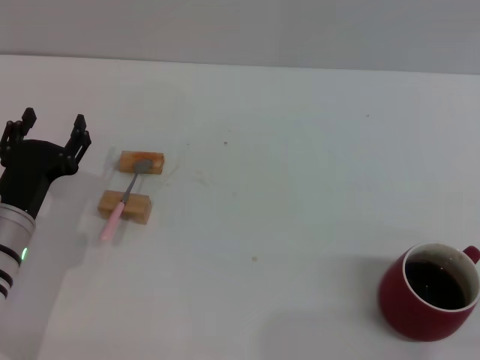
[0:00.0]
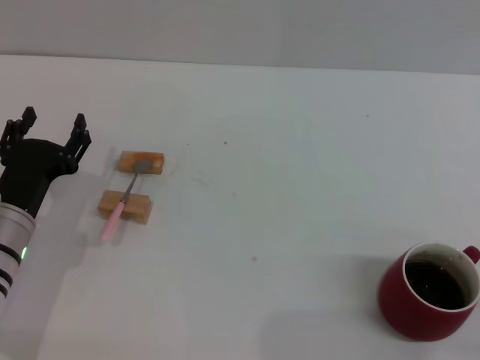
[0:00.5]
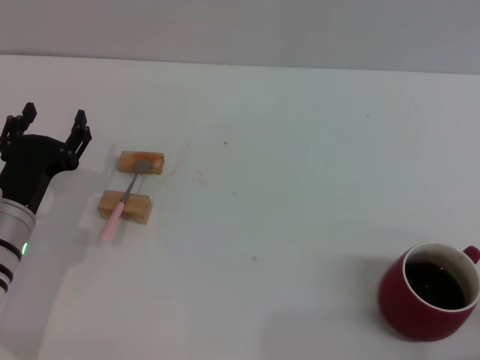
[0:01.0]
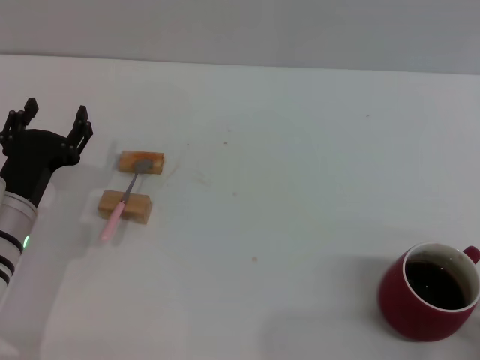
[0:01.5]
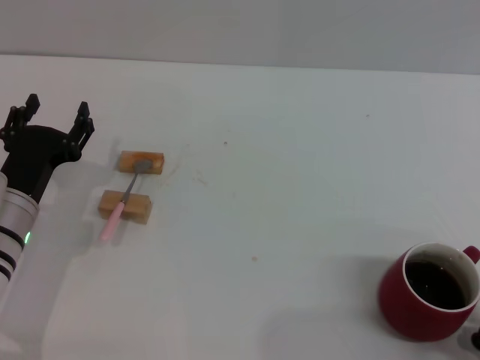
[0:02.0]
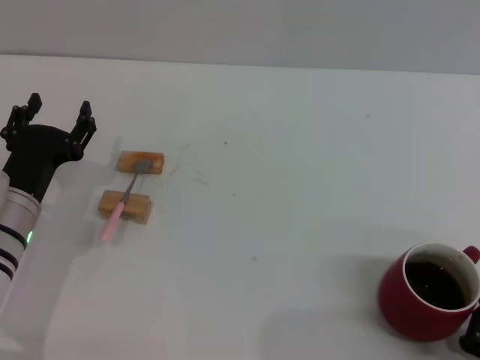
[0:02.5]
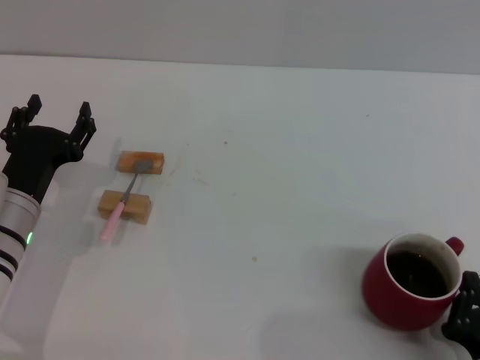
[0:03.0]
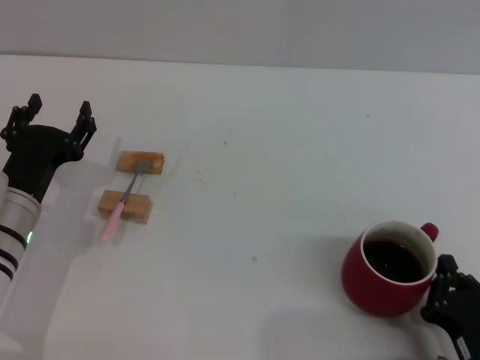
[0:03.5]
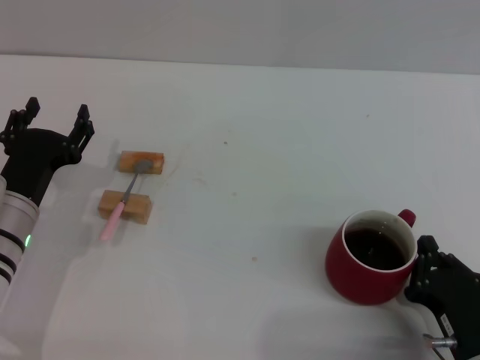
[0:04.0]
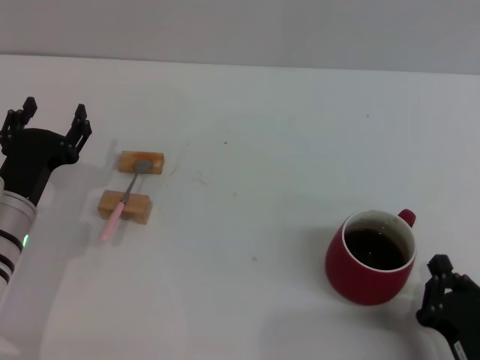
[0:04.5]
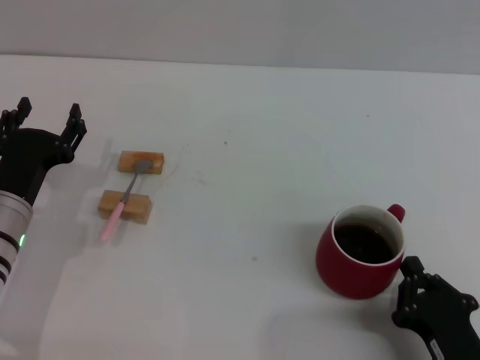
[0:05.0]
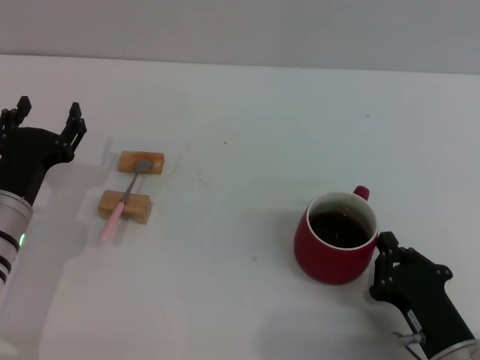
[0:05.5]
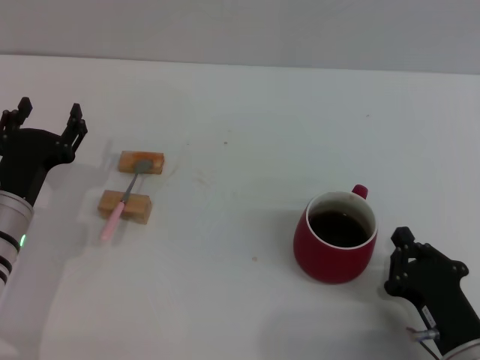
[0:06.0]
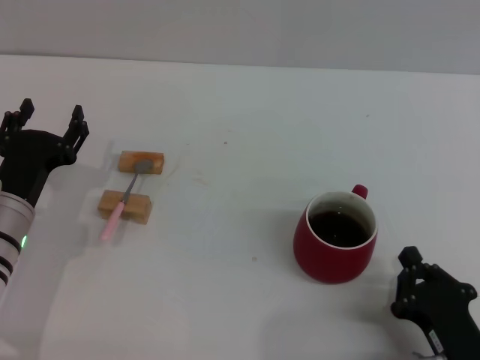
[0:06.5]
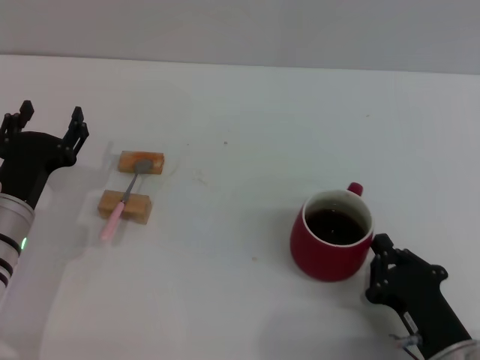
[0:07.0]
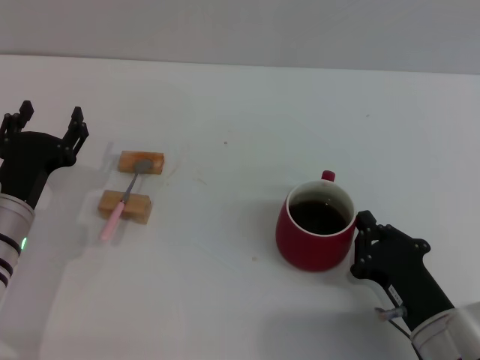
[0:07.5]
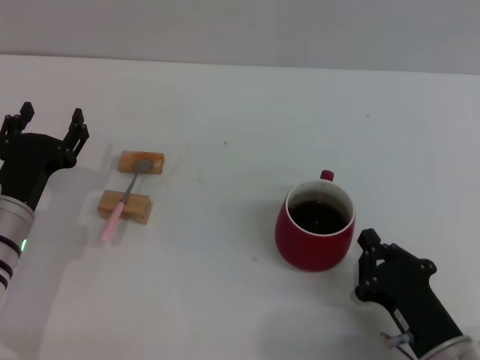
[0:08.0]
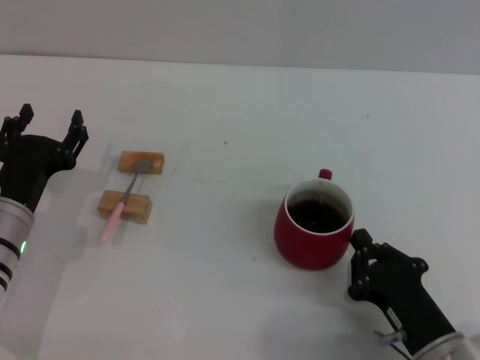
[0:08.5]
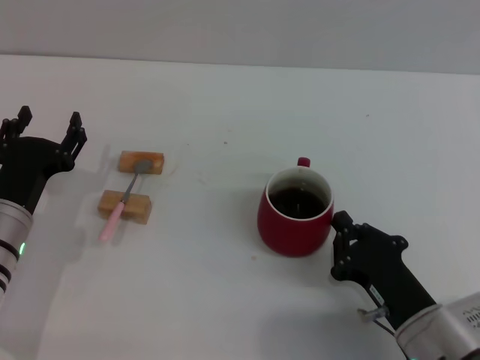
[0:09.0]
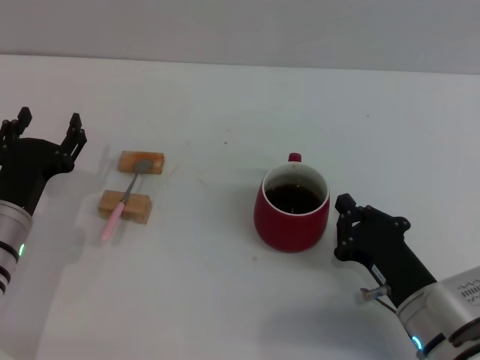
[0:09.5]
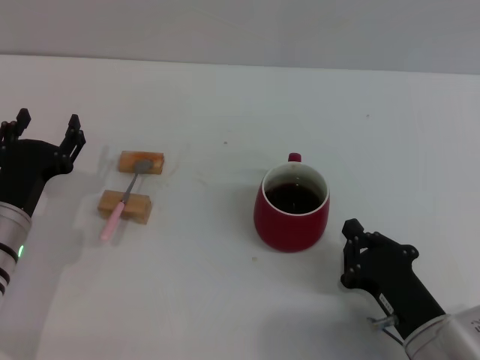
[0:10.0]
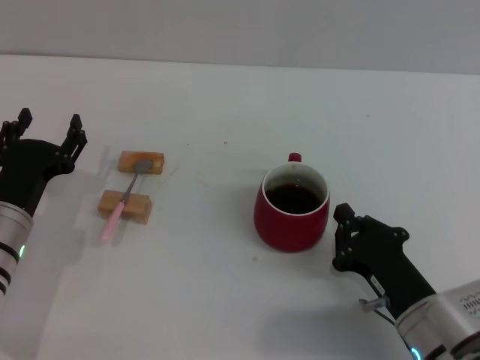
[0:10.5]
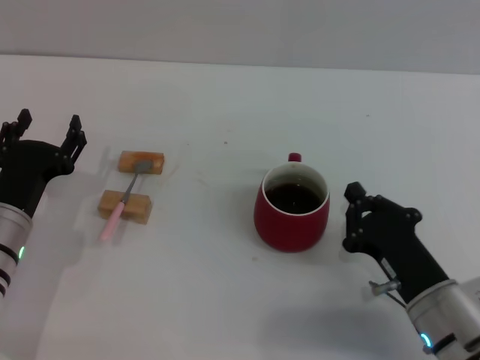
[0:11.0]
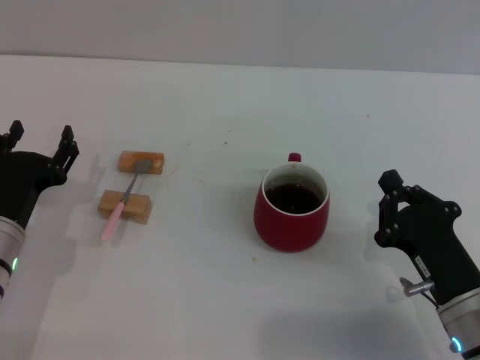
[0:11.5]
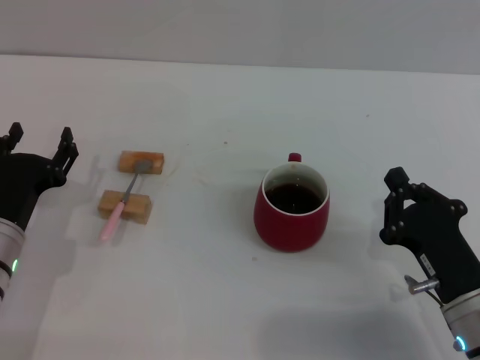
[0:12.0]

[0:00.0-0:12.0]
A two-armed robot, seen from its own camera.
Task of the whole recording: Move the red cup to the center, lift the pink spoon, stir it three times in the cup, and put the spoon into the cup.
Step, 0.0 to 11.0 s: Move the cup with coffee to the center of view with the right gripper.
0.0 to 2.0 s: The right gripper travels to the left by approximately 5 cm.
2.0 to 4.0 s: The right gripper travels forward by some 5 cm.
4.0 to 8.0 s: The grippers stay close to where they were, moving slightly.
8.0 to 12.0 s: There are only small adjustments of the grippers.

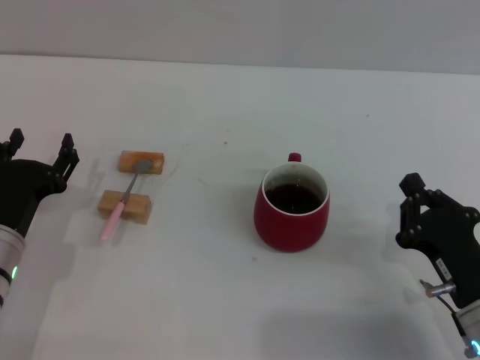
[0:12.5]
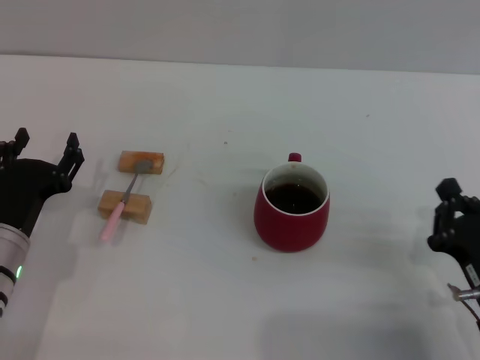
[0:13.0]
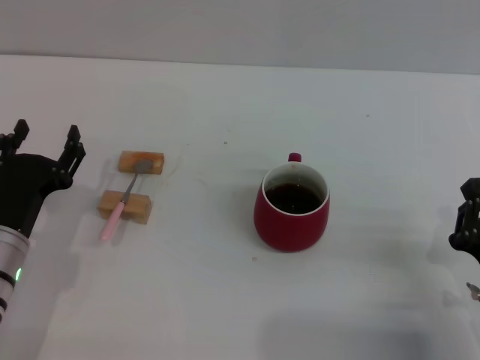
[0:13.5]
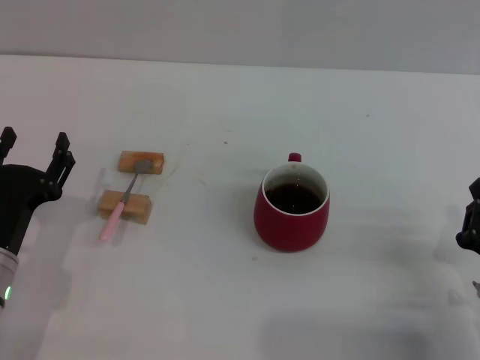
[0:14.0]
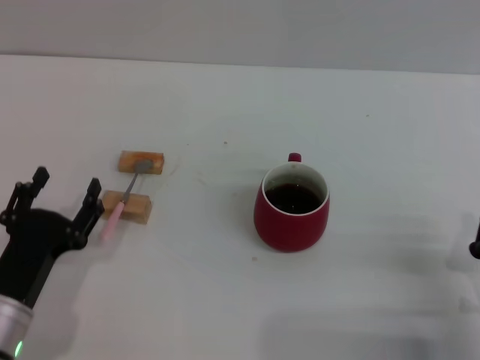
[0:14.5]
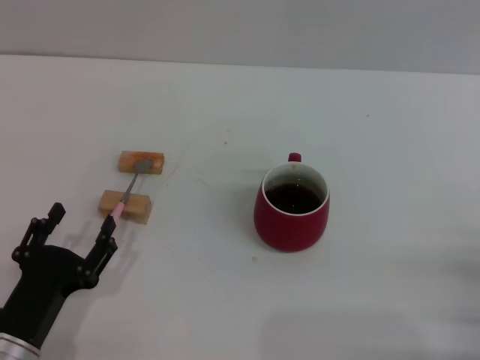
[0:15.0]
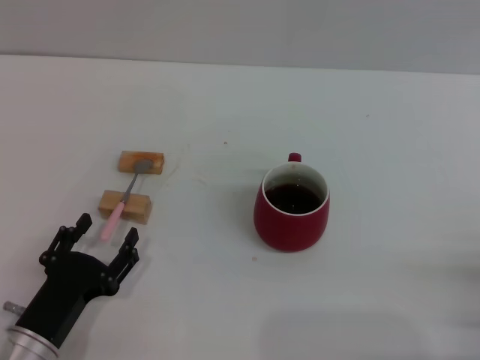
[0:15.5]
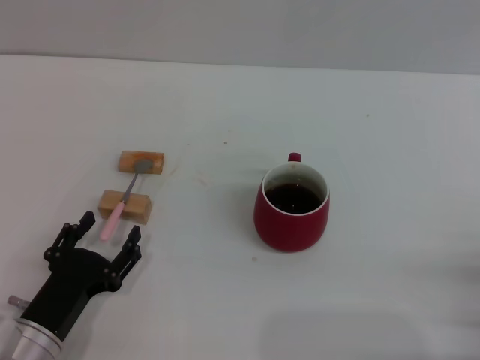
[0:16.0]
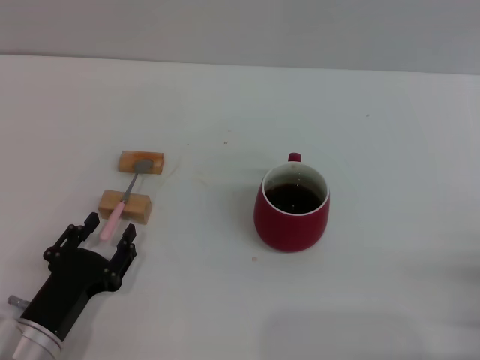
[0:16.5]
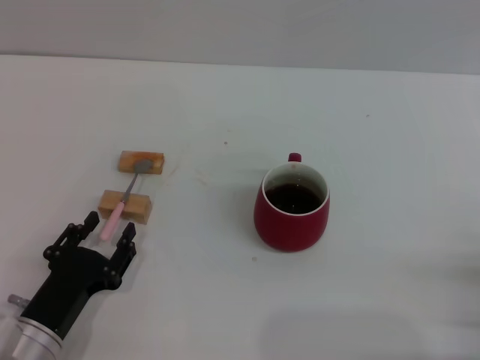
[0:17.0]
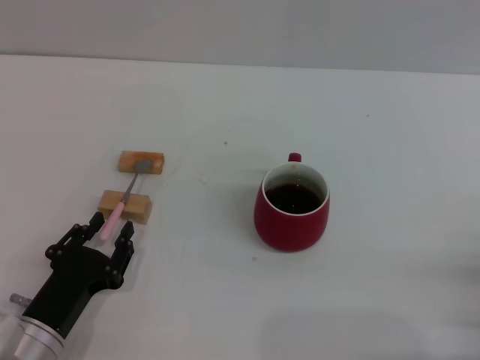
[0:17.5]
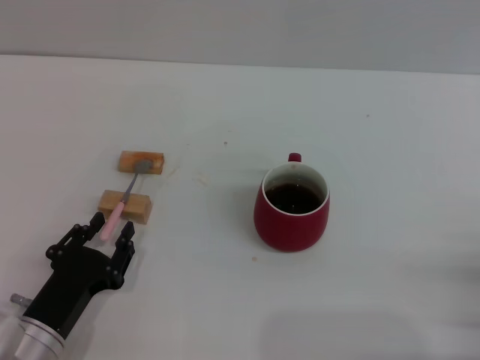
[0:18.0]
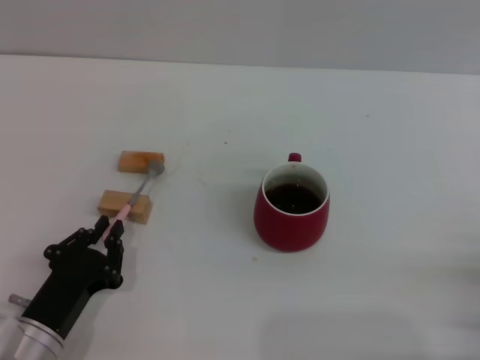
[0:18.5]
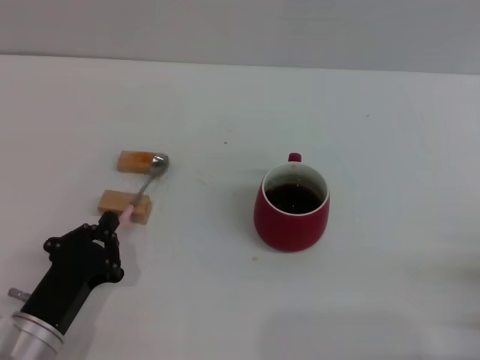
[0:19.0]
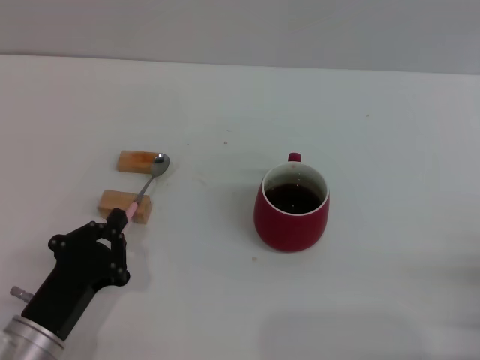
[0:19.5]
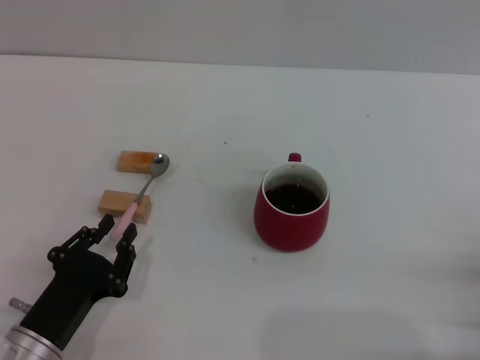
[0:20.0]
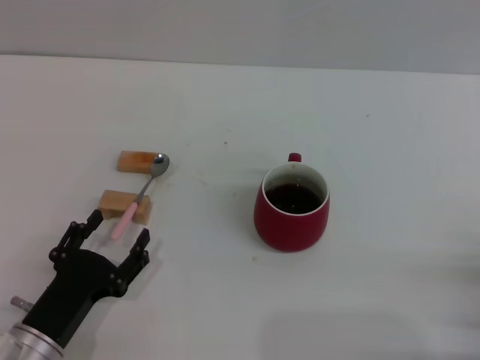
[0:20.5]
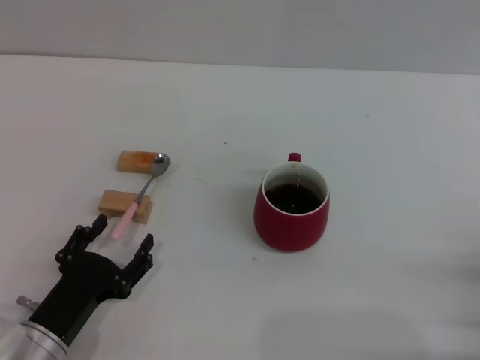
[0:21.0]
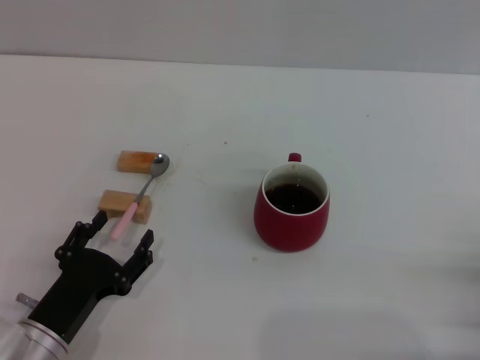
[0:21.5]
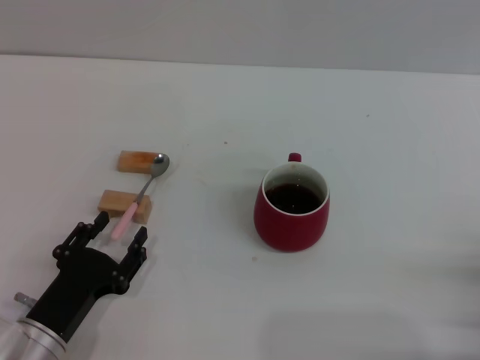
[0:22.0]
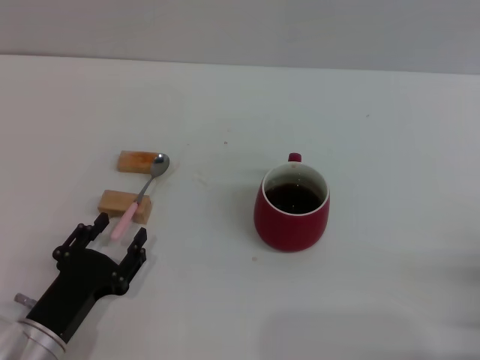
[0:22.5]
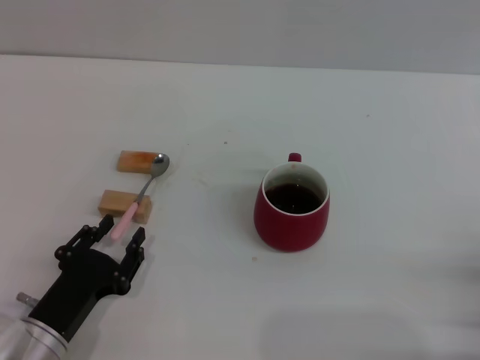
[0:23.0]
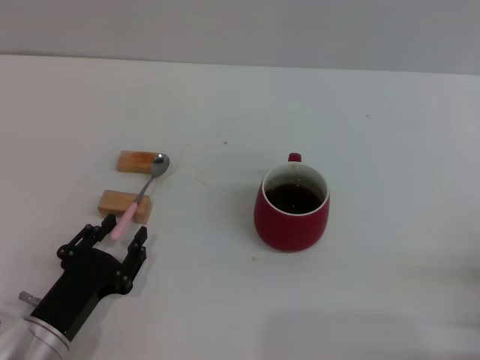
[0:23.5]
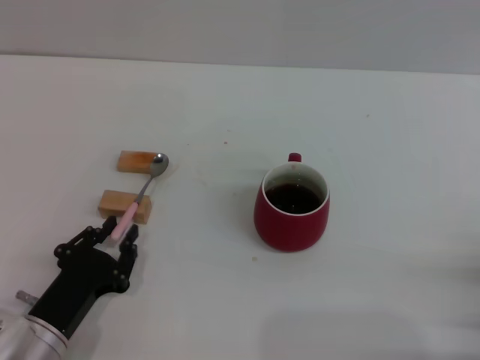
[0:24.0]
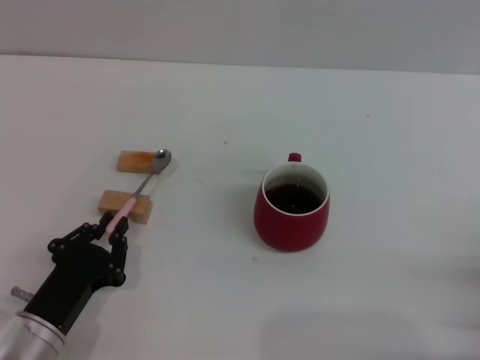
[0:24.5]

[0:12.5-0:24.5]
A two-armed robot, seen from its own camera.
Task of the whole recording: Move the red cup to the center, lift the pink spoon, stir it three times in the cup, and put the spoon into the cup.
12.5 to 14.5 s: The left gripper shifts roughly 5 cm backward.
14.5 to 16.5 s: The grippers move only a little.
16.5 to 18.5 s: The left gripper closes.
18.5 to 20.5 s: The left gripper opens up.
20.5 to 22.5 s: Neither gripper changes place.
22.5 to 24.5 s: The left gripper closes up.

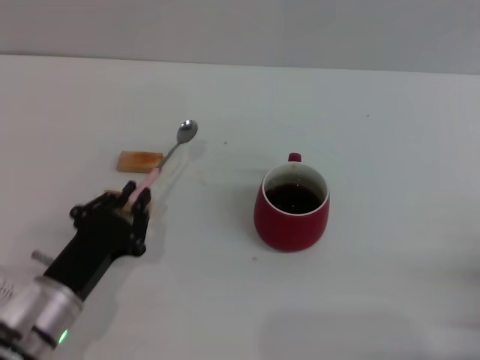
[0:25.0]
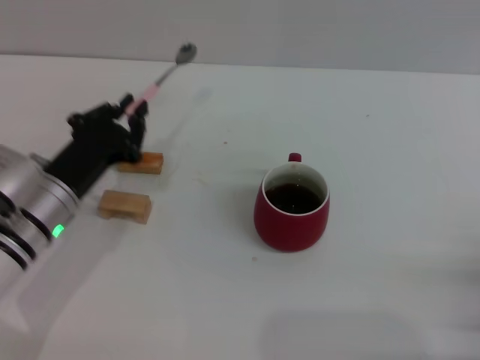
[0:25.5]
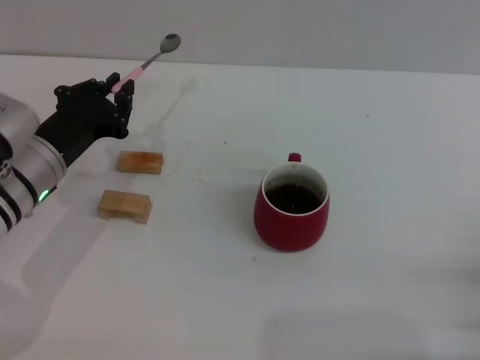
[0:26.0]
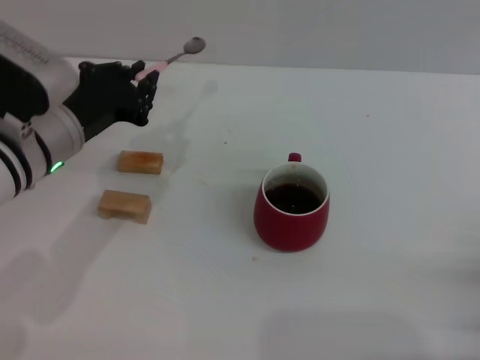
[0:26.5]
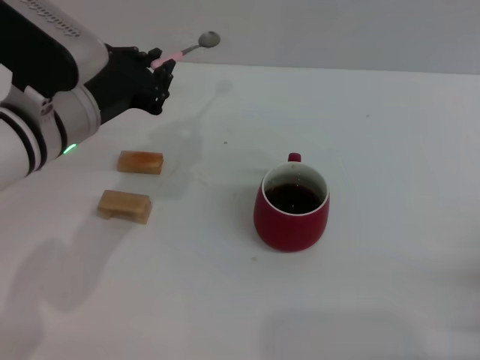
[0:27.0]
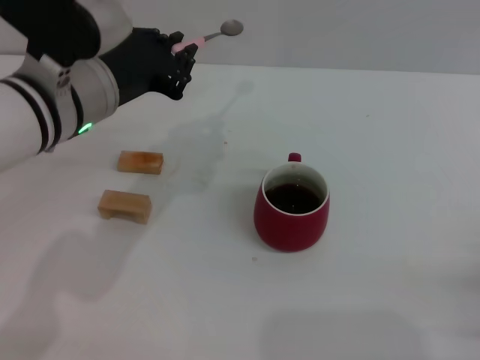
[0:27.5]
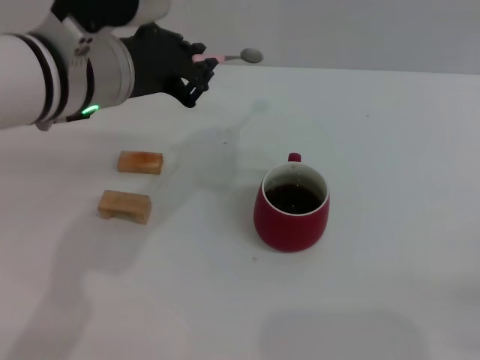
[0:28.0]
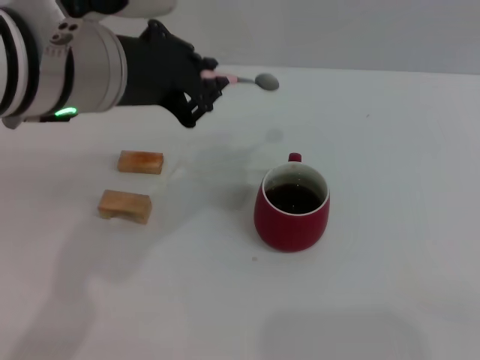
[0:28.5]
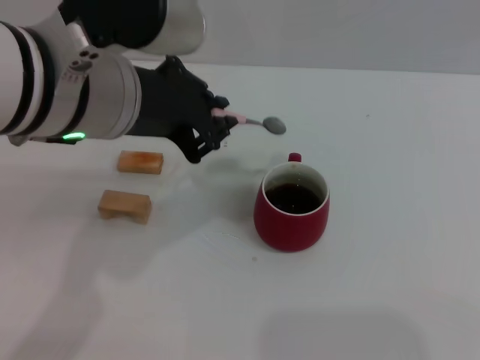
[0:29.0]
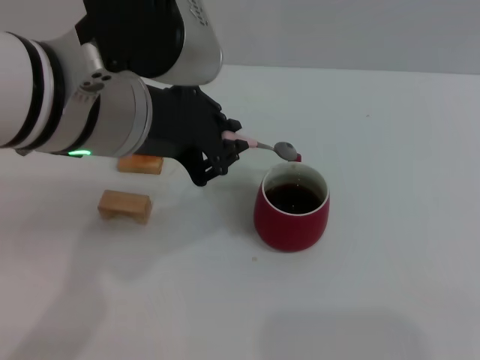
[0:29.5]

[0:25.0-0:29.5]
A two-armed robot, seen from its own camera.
Task of the whole recording: Move the red cup to the center, lift the pink spoon, stir it three times in the cup, and put the spoon into the cup.
25.0 to 27.0 s: The left gripper heads upward and forward, covering roughly 20 cm.
27.0 to 29.5 s: The right gripper moves to the right and backward, some 10 cm, while the left gripper heads upward, to the right and backward, covering roughly 15 cm.
